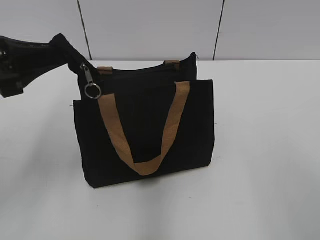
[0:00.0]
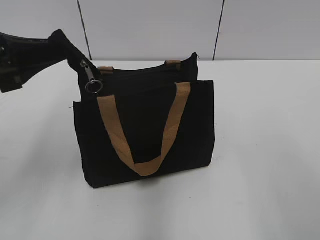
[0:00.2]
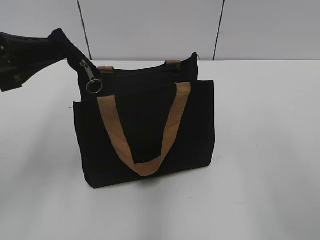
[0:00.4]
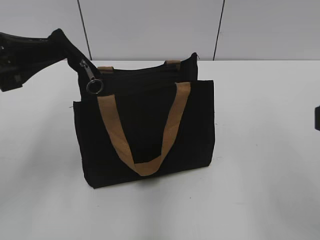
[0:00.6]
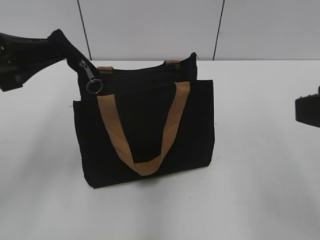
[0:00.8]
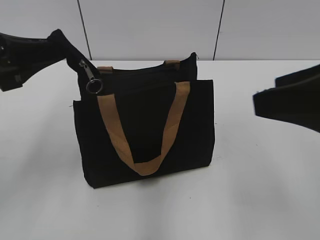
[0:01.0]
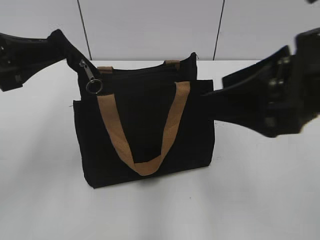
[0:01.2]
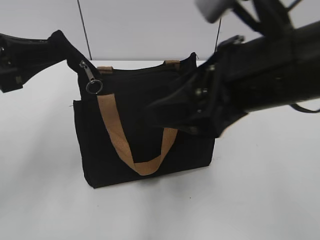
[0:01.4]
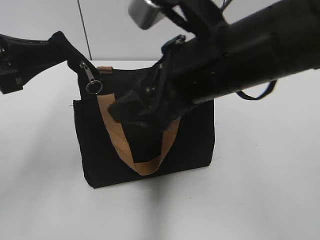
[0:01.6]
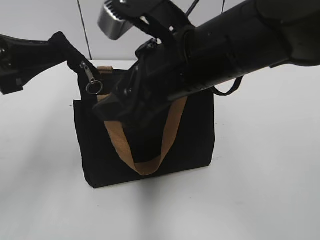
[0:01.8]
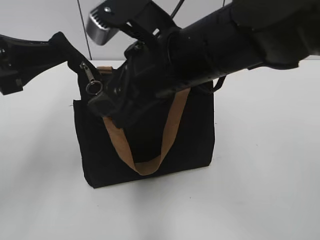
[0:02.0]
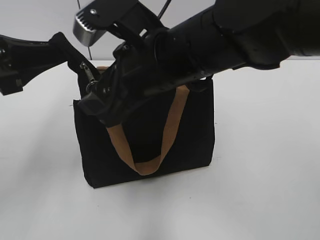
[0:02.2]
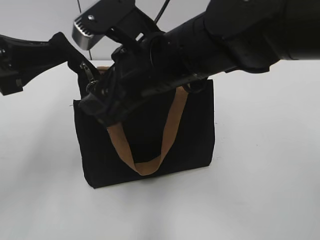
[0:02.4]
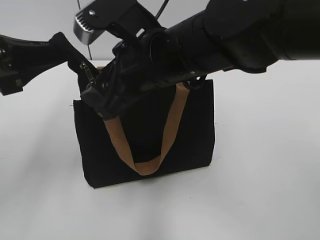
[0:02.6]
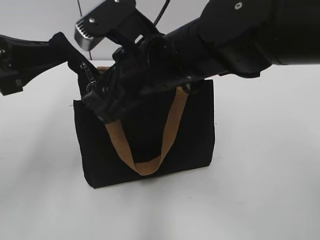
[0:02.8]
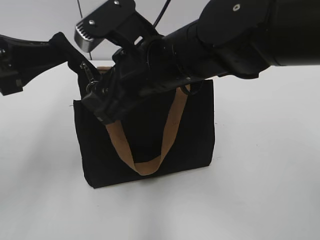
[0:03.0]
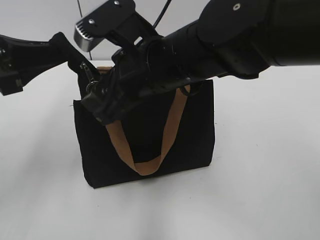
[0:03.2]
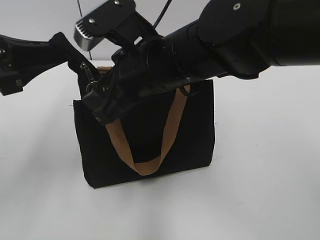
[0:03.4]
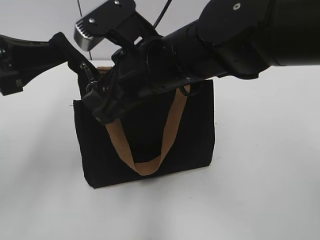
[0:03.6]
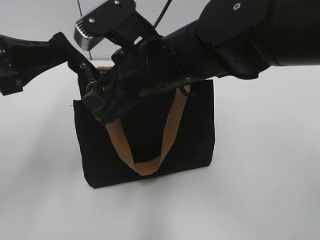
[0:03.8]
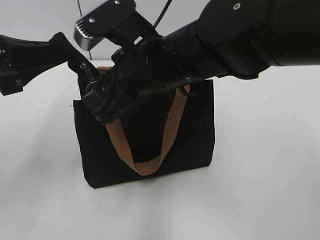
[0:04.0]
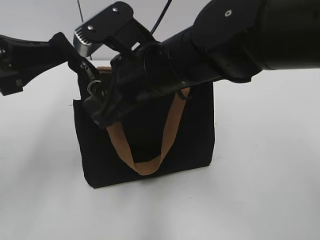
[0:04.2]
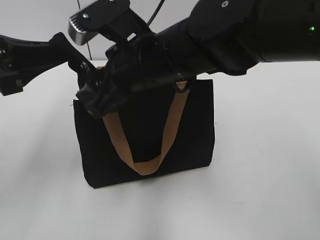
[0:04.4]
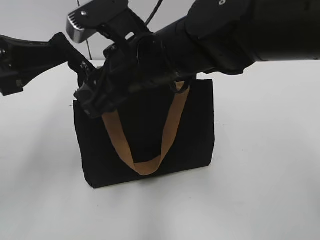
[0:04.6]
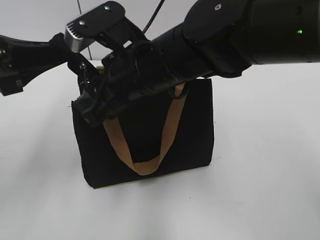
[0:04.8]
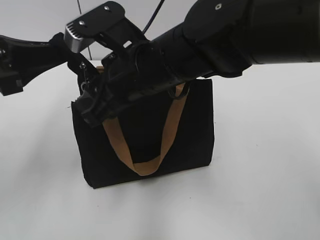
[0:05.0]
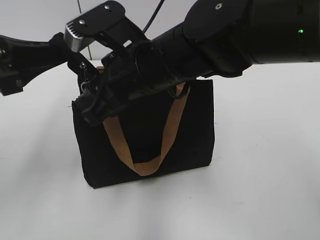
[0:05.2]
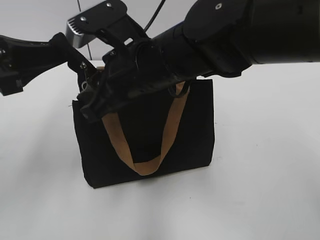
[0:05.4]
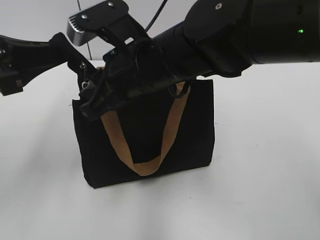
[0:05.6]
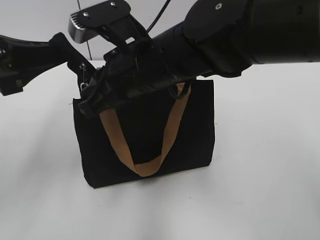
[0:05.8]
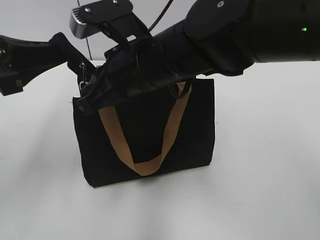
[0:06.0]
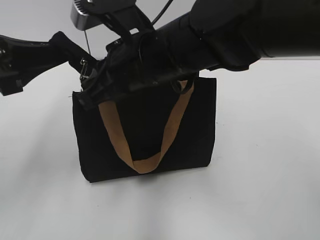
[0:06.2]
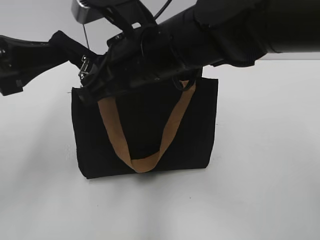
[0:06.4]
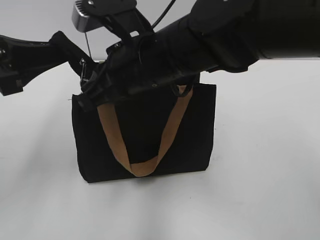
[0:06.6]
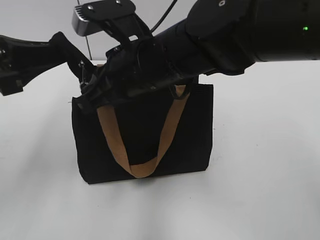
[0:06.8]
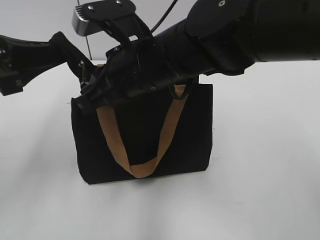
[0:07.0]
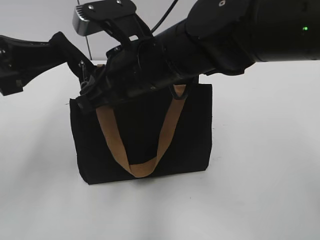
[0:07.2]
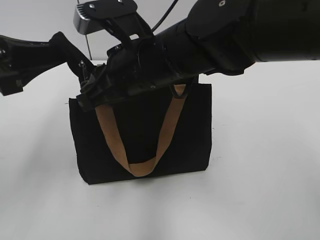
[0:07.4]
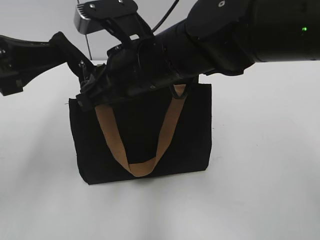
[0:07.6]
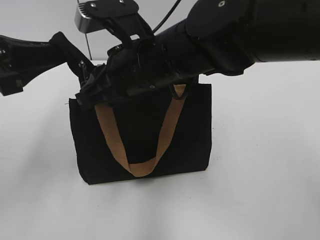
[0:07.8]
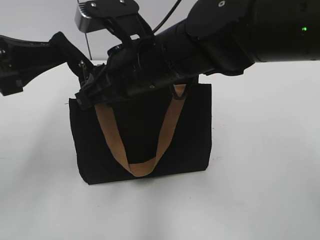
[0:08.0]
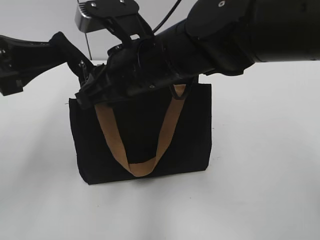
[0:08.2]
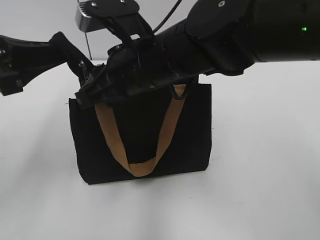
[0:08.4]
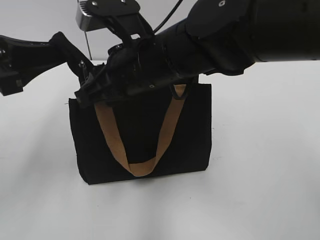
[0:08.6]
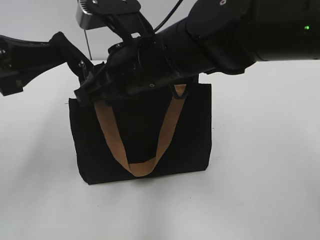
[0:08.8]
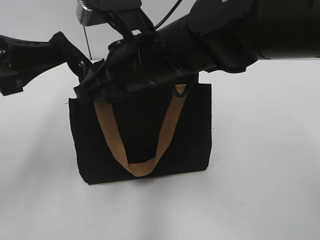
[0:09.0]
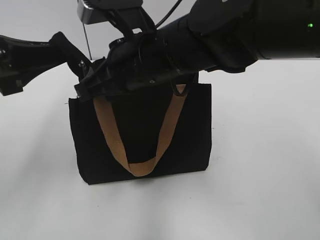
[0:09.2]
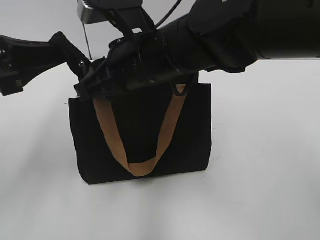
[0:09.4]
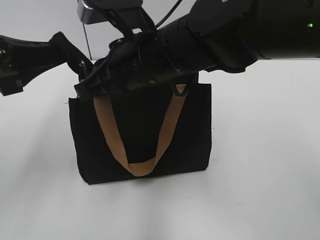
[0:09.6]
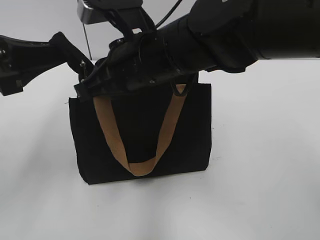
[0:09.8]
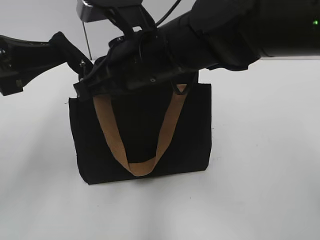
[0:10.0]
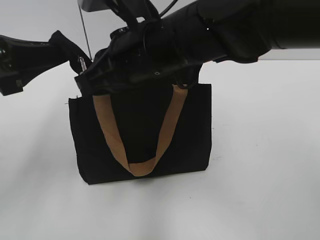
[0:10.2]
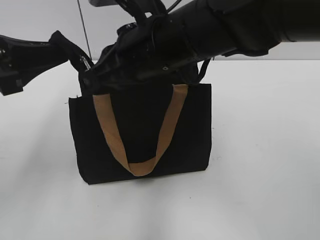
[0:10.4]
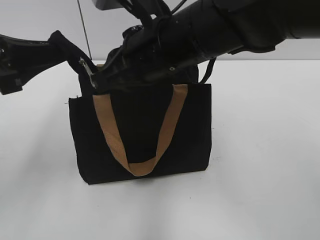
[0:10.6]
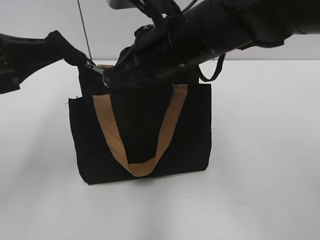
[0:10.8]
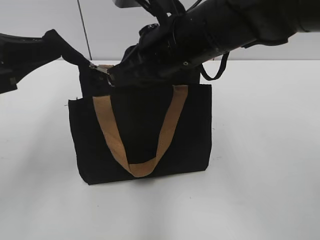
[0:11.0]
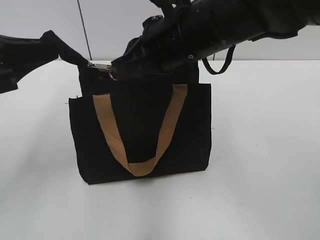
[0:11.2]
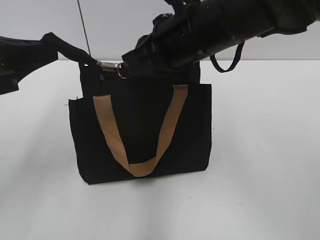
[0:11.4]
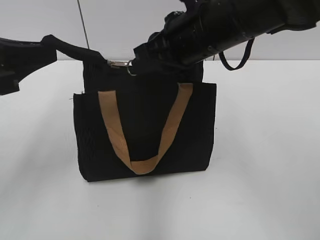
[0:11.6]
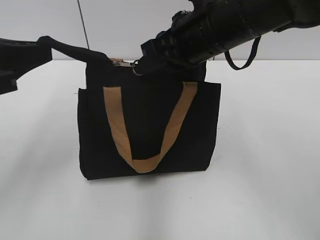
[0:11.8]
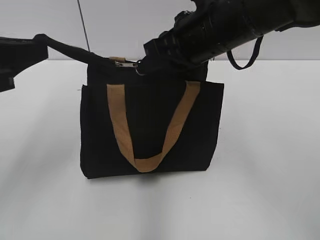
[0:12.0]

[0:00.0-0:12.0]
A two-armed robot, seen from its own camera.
0.0 to 1.6 s: The right gripper shifts approximately 25 cm forward and to the left.
1.6 to 3.0 s: The right gripper moves to the left and forward, some 10 cm.
3.0 to 4.4 s: The two grippers keep their place.
4.4 to 6.0 s: The right gripper closes up.
6.0 to 7.6 s: The grippers make only small movements.
7.6 to 9.0 s: Both grippers stay put.
9.0 to 10.4 s: The right gripper closes up.
10.4 to 12.0 s: The right gripper heads to the right, covering roughly 5 cm.

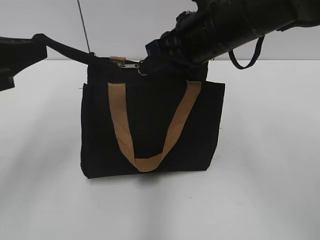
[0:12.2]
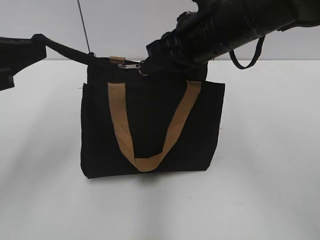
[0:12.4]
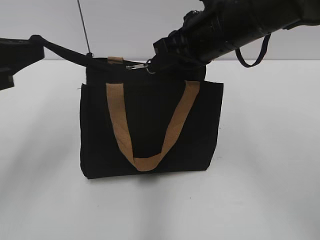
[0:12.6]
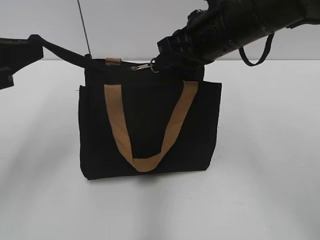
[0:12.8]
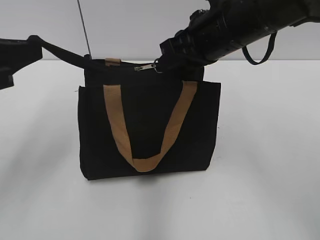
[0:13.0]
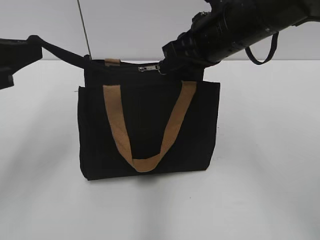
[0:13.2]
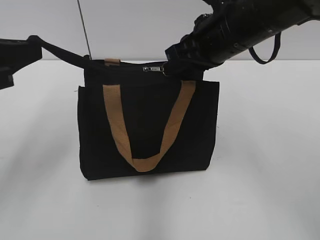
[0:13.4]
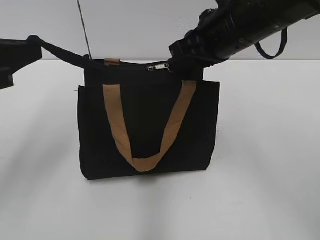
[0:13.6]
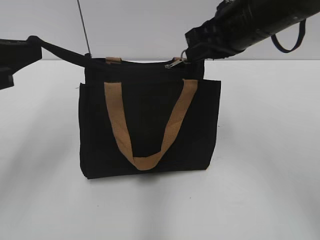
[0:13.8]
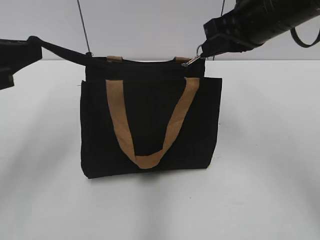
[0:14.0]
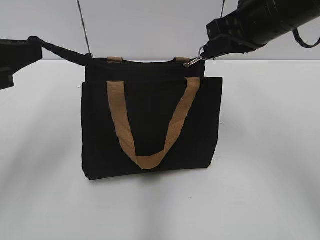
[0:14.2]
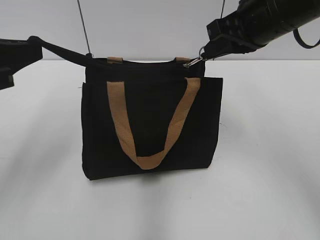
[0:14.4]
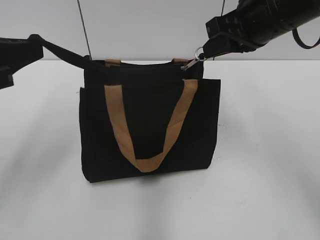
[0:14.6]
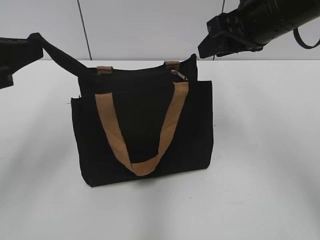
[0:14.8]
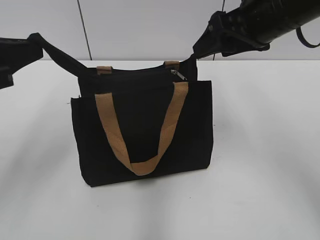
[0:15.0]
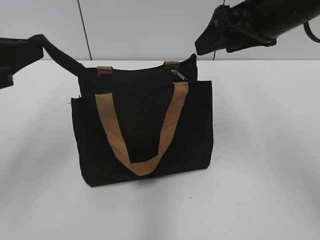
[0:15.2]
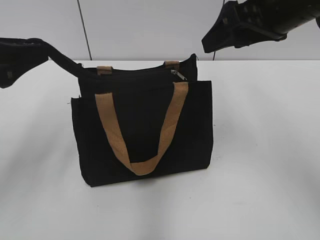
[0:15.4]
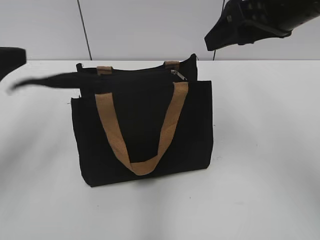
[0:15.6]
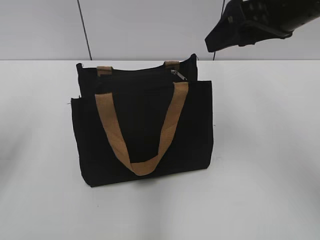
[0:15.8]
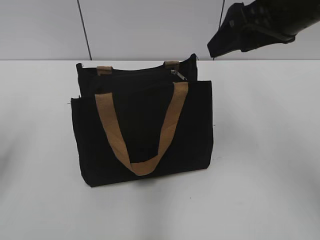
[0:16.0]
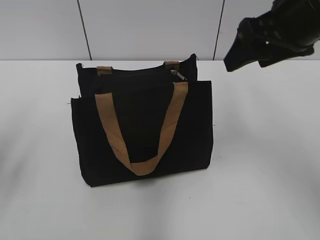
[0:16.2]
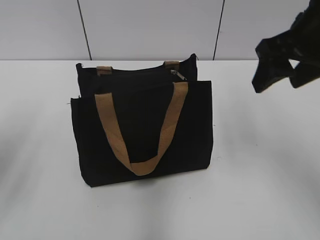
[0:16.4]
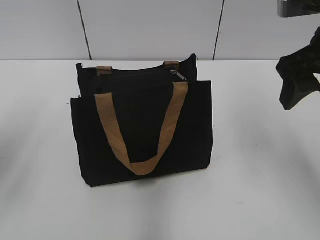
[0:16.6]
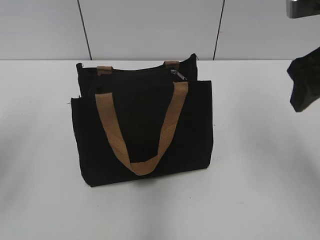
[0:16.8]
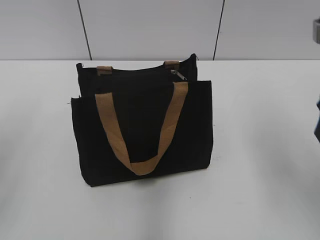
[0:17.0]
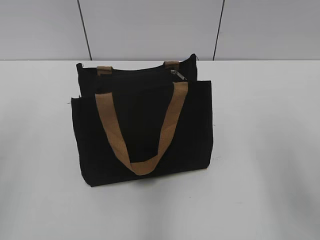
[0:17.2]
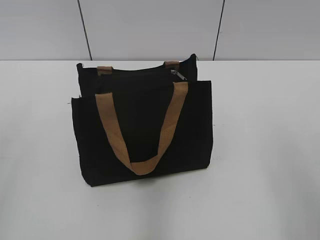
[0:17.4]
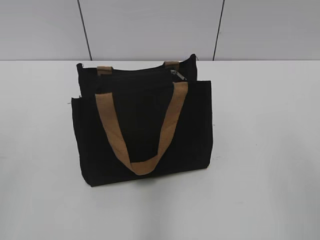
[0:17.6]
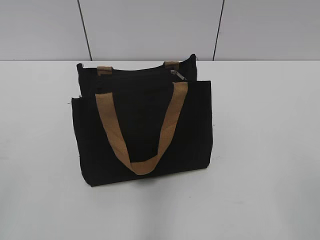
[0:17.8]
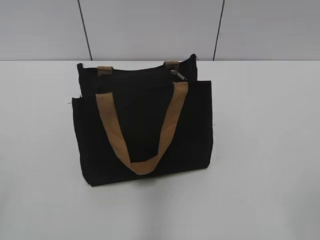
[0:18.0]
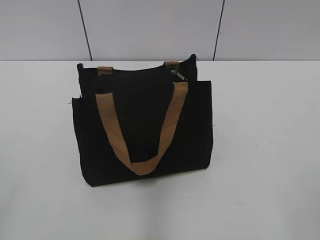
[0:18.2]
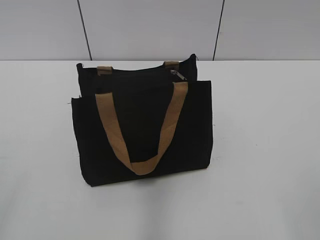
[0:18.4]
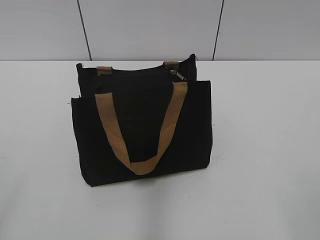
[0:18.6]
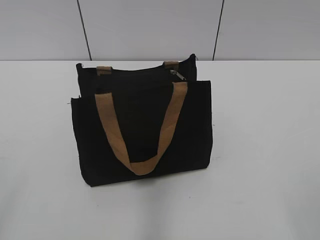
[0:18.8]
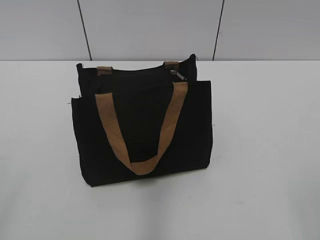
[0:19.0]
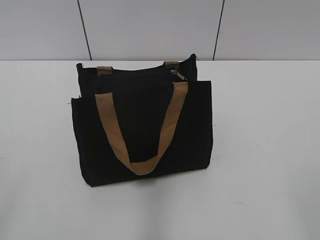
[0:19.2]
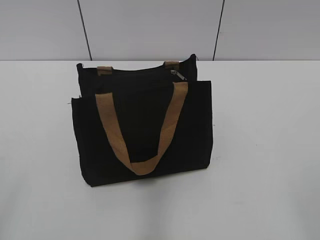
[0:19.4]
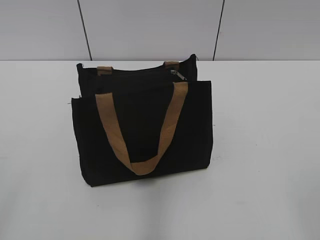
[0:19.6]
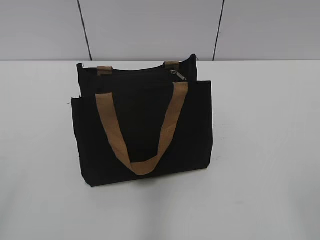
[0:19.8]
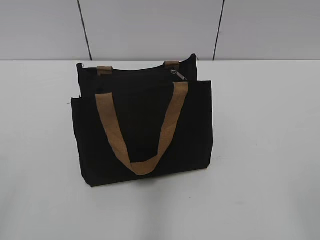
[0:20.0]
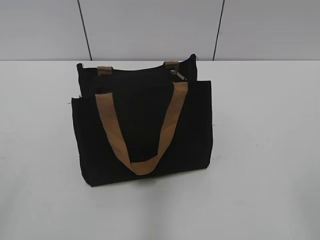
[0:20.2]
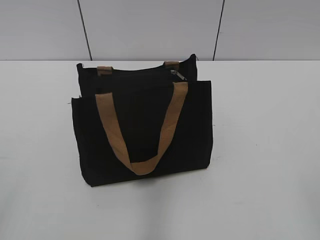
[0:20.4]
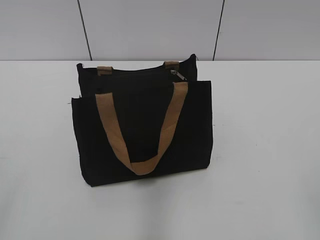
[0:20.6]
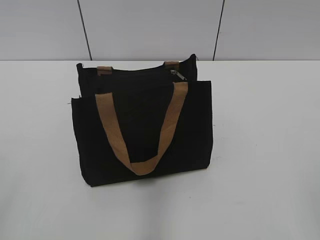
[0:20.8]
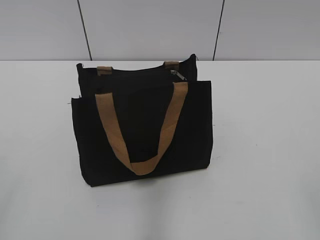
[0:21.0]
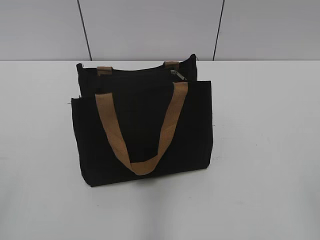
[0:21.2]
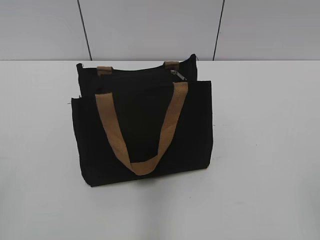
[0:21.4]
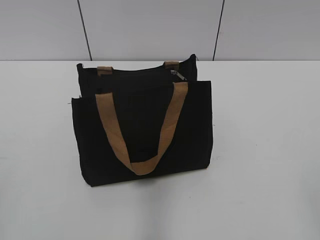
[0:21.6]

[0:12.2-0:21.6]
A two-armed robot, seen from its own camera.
Step, 12.2 to 14.6 s: Zip up the bag with your right hand.
Step, 14.8 to 15.6 s: Grab the zipper with your left hand.
12.2 to 13.8 s: The grippers stay close to where they were, moving slightly.
13.8 to 15.4 s: The left gripper opens its fingers. The right gripper ends up approximately 5 cm from where it was, and opens.
15.4 to 17.0 s: The right gripper heads backward and to the right, covering about 10 cm. The left gripper ends up about 5 cm from where it was.
17.0 to 18.4 s: The right gripper is displaced backward by some 25 cm.

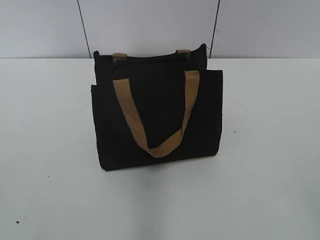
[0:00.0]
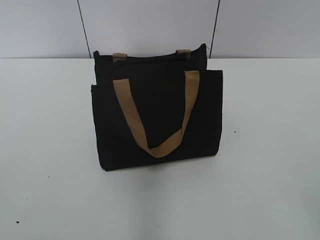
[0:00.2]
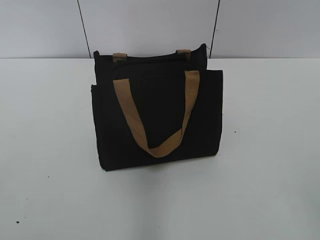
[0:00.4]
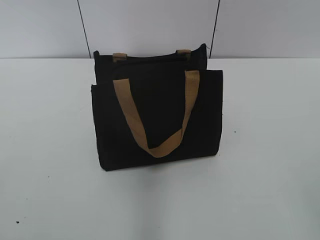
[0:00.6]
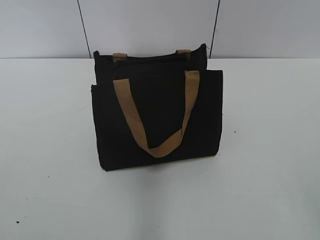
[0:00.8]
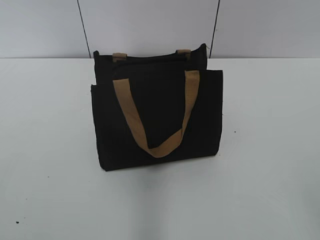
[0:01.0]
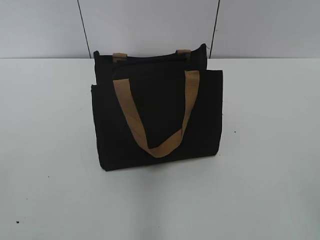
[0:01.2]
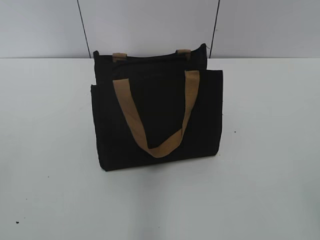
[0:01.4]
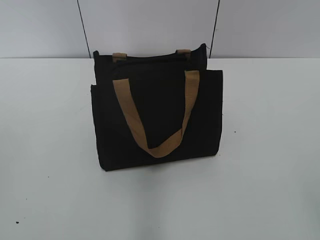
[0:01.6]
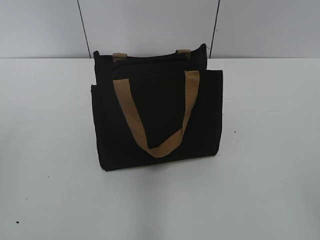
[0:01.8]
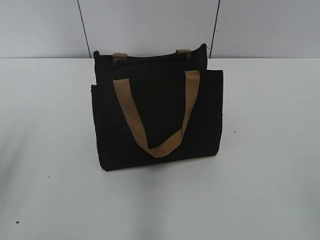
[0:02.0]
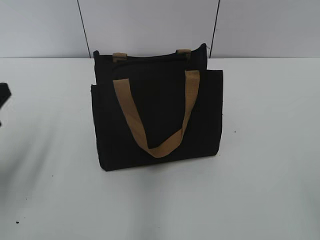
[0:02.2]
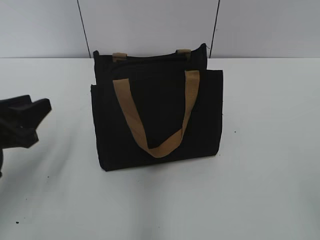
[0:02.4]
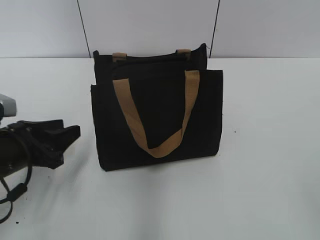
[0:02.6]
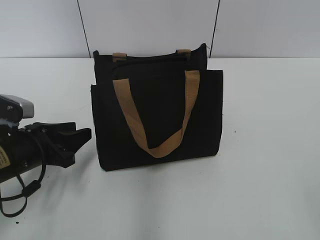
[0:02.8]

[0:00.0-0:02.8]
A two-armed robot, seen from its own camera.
1.4 to 2.8 s: The left gripper moves downward, forward and to the right, approximately 30 cm.
